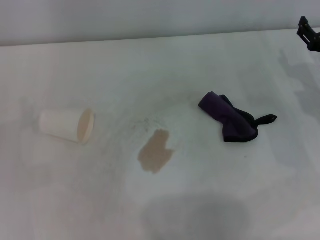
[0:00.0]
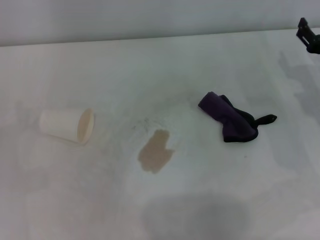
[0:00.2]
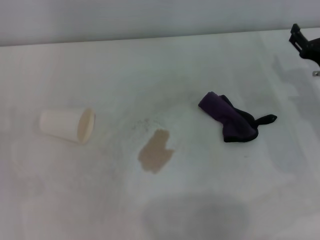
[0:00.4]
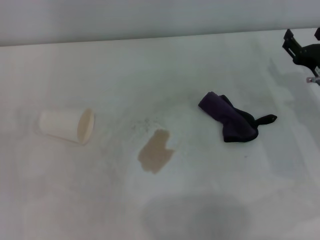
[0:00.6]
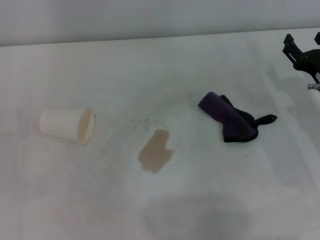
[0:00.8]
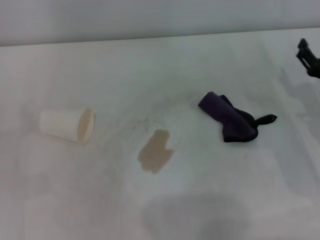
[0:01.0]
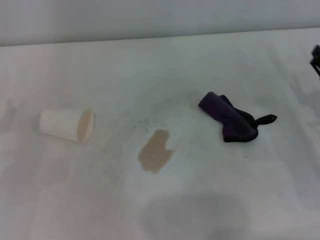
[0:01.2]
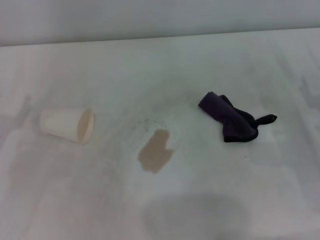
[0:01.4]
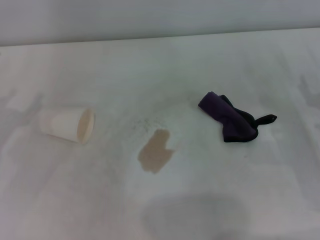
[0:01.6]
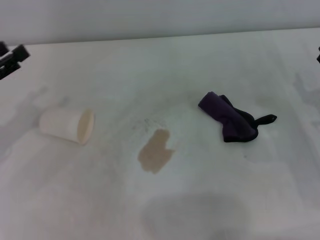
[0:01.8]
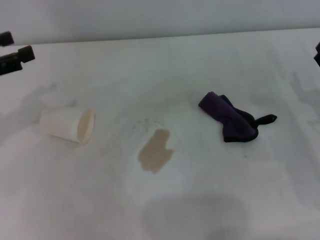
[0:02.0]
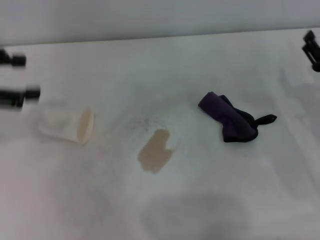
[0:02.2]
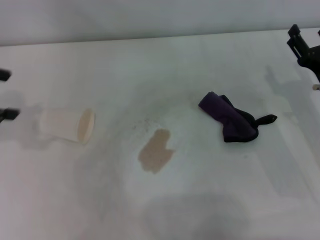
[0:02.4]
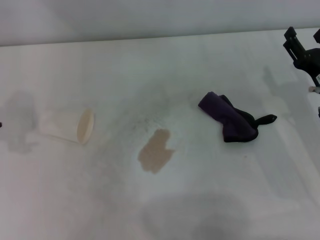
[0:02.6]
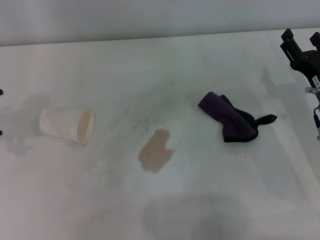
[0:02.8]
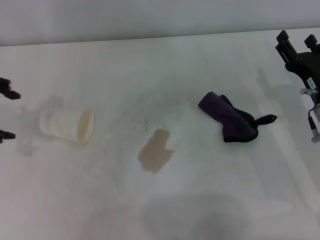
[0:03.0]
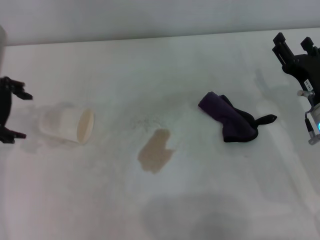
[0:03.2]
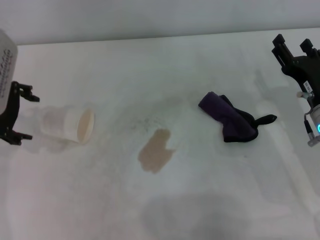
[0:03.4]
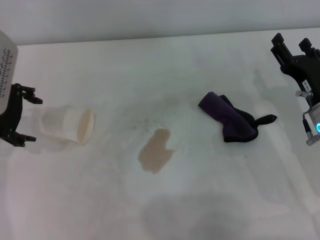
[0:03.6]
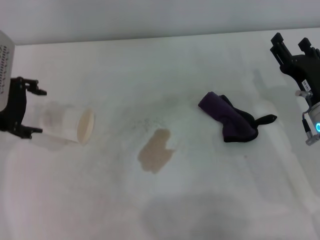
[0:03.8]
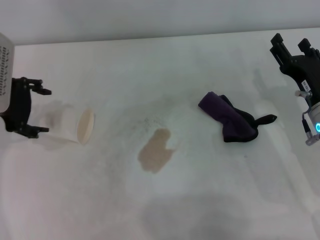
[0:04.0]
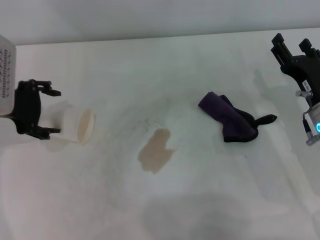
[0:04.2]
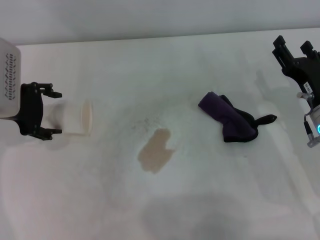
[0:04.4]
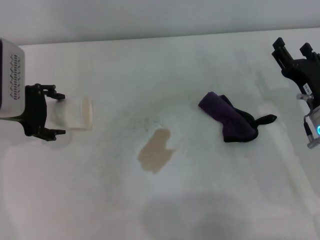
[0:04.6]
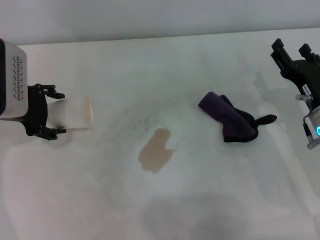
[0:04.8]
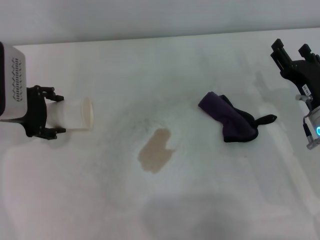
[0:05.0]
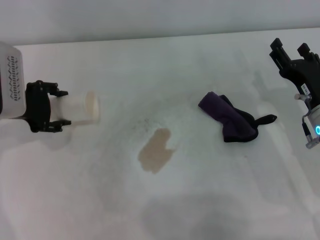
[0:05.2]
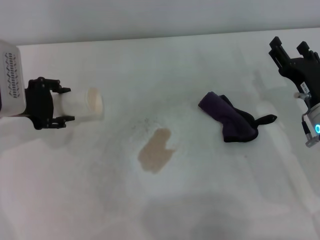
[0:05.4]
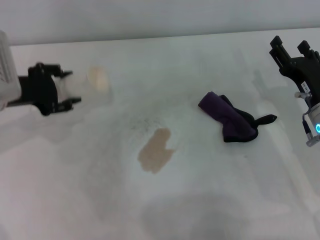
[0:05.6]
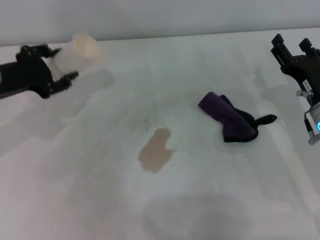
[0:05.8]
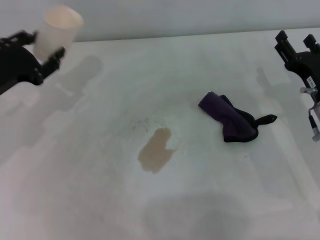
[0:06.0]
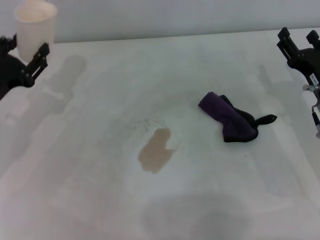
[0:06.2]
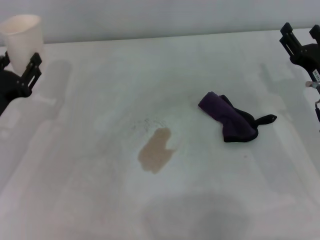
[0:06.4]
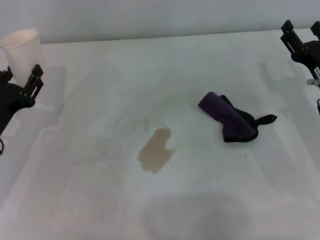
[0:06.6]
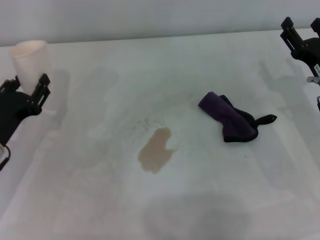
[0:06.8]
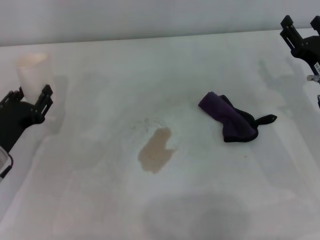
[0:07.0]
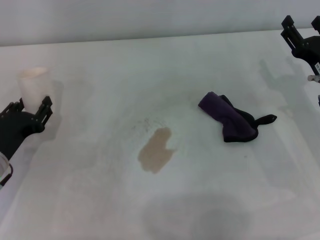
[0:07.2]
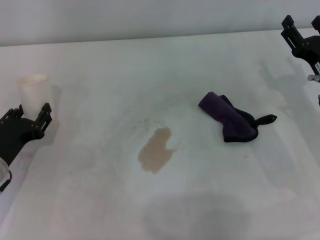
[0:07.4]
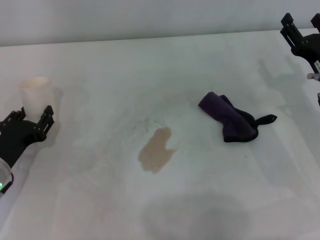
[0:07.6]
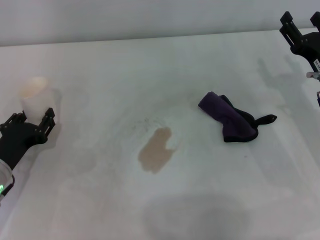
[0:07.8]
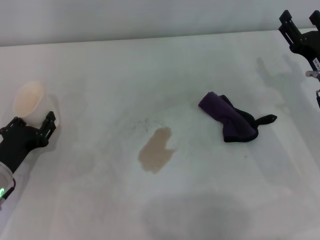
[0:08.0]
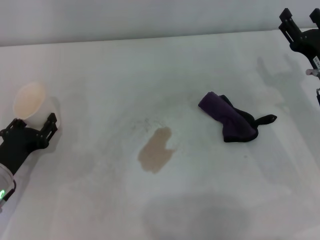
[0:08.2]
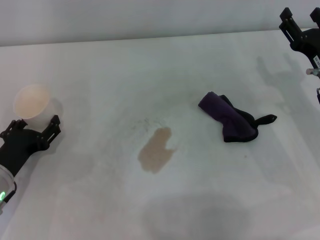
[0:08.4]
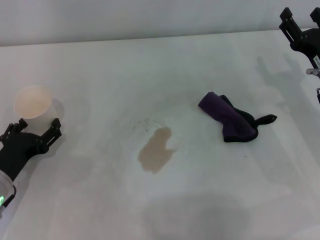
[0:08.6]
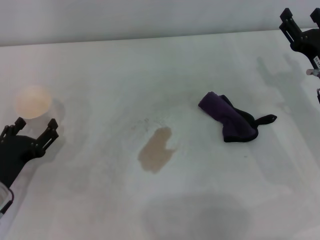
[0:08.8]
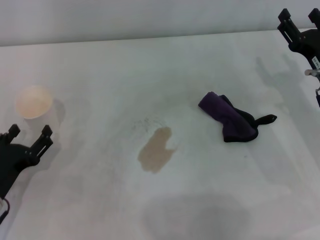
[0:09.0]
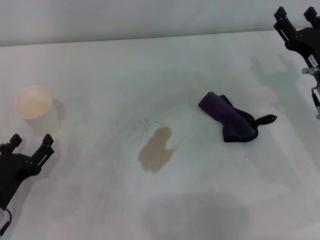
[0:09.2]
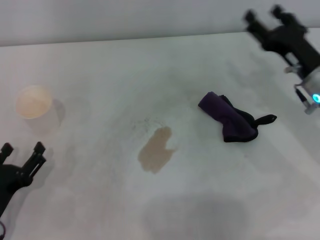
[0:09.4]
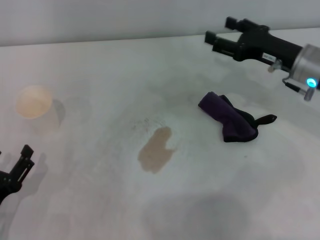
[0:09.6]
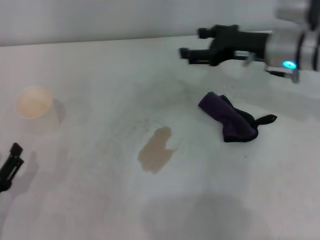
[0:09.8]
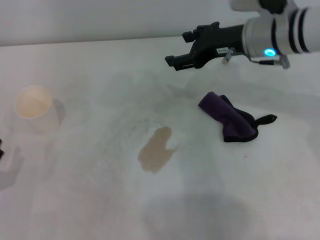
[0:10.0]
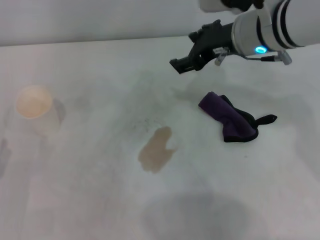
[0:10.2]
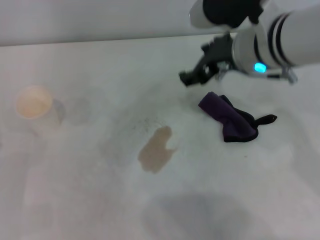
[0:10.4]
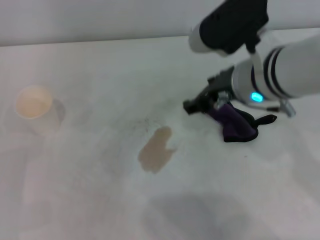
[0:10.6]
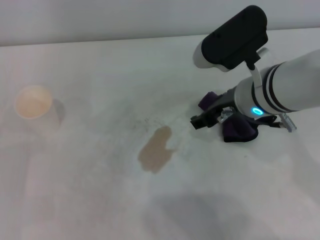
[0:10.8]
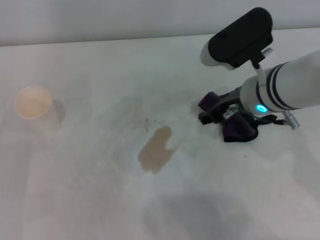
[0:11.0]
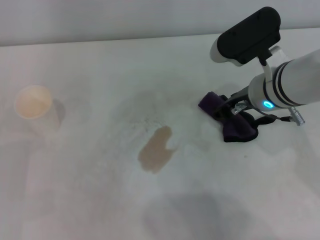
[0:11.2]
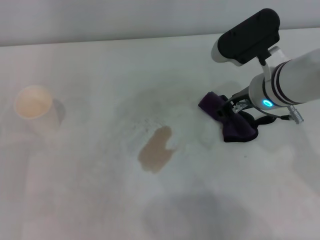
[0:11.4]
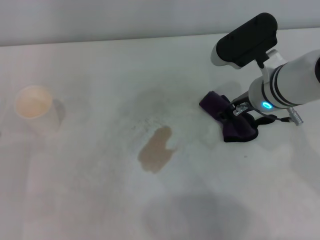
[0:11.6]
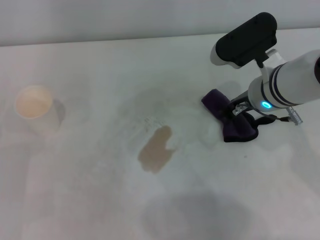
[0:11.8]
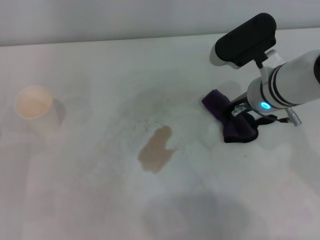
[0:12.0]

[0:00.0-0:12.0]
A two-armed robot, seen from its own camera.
Step, 0:00.0 to 0:04.8: Grasp the paper cup with the left gripper.
Step, 0:05.2 to 0:08.2: Stand the paper cup upright with the left gripper.
Step, 0:08.4 to 0:11.8: Grasp the rag with the right gripper.
0:00.0 to 0:01.6: The right gripper goes some 10 cm backward.
0:01.6 to 0:03.0: The right gripper is displaced to the left by approximately 5 cm.
0:03.0 to 0:04.4: The left gripper is displaced downward by some 10 cm.
0:04.4 to 0:06.0: The left gripper closes its fingers.
0:06.0 to 0:07.6: The left gripper travels downward and backward by approximately 15 cm.
0:07.6 to 0:09.0: The left gripper travels backward by about 5 cm, and opens its fingers.
0:09.0 to 0:10.4: The right gripper shifts approximately 20 cm to the left and upward, while the left gripper goes some 5 cm to the left.
0:10.4 to 0:12.0: The right gripper moves downward, roughly 10 cm, and closes its fingers.

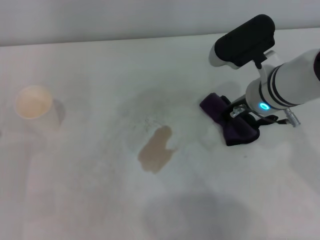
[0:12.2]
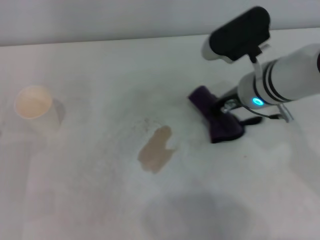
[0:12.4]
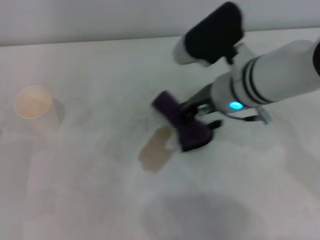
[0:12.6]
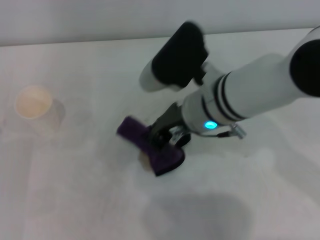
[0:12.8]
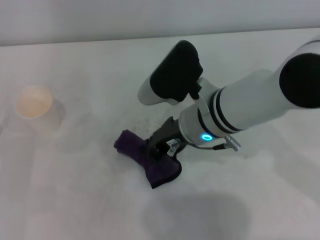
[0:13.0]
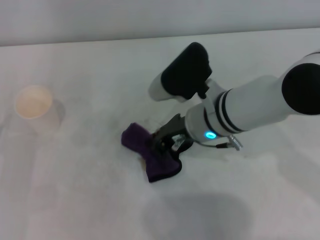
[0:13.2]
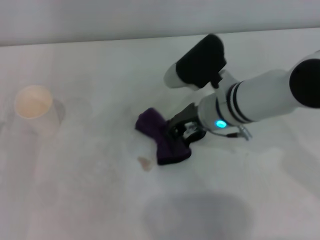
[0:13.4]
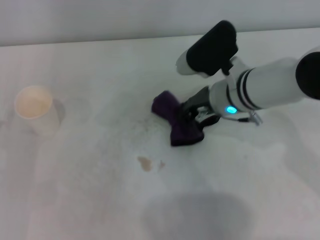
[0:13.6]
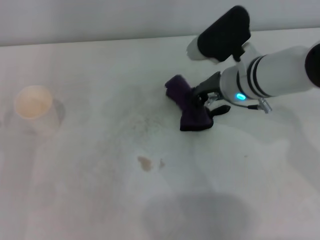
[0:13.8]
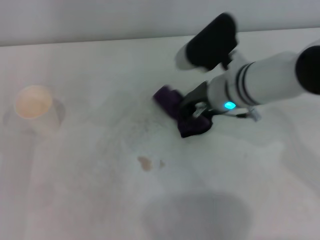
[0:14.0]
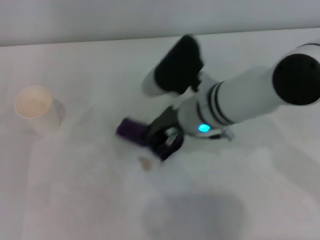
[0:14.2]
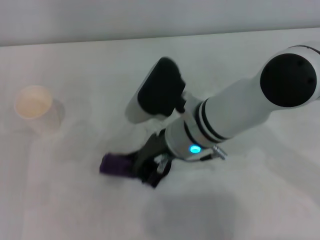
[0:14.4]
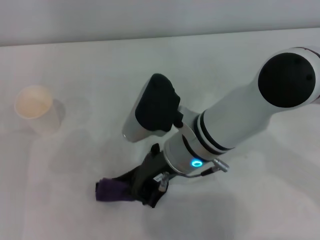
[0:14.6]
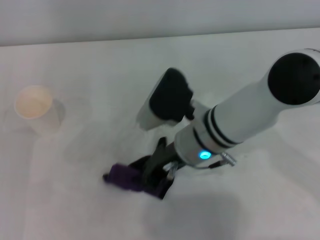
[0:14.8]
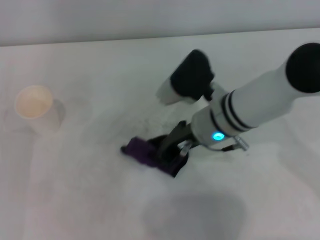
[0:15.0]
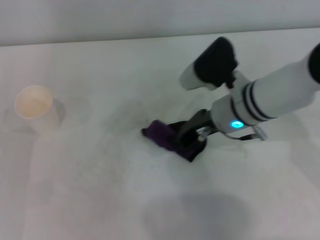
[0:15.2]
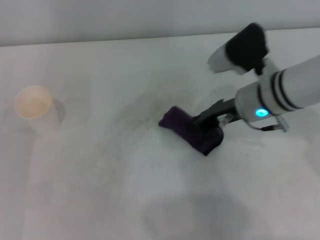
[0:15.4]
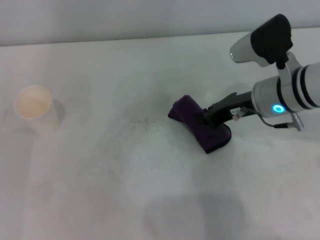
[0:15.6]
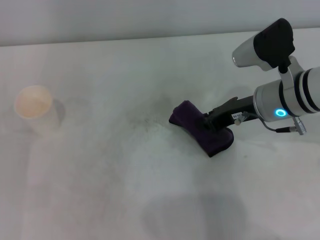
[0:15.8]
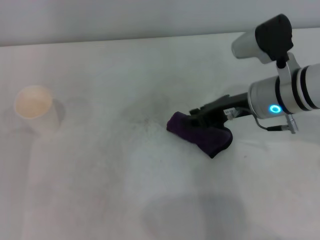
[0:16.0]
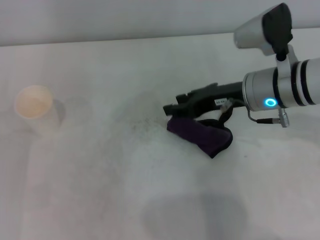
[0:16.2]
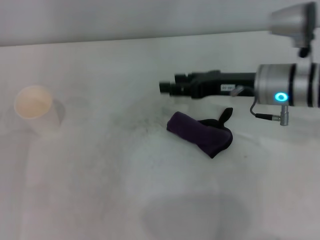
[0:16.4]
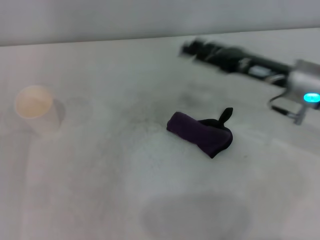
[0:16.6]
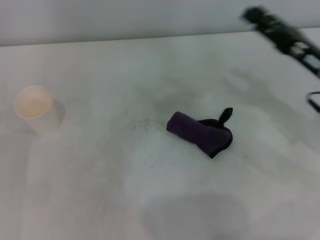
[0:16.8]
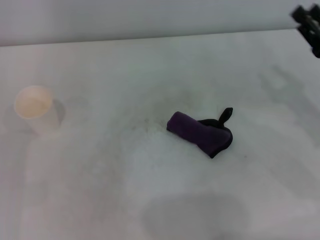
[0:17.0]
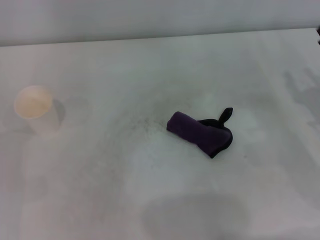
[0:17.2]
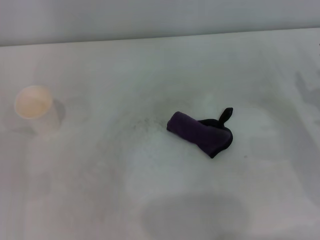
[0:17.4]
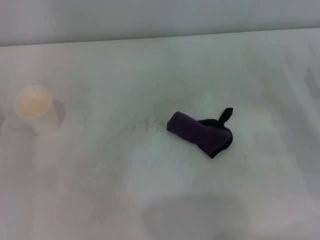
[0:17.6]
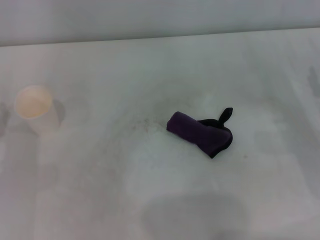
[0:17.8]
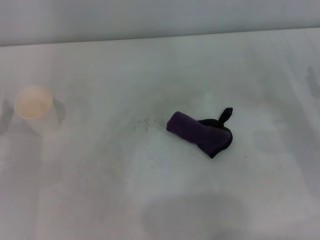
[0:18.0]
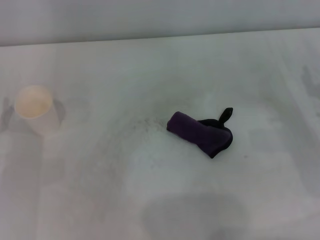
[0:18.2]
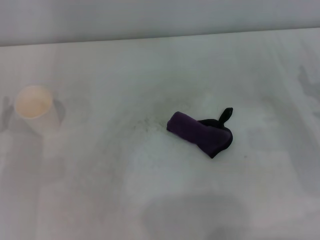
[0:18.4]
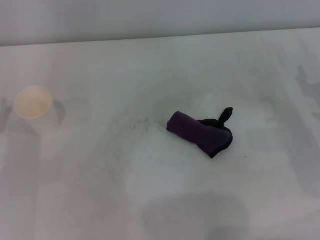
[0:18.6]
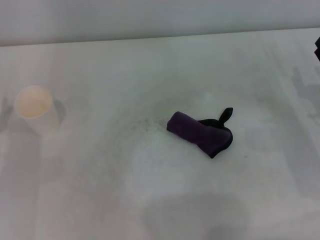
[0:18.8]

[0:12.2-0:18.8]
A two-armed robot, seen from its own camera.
Step, 0:12.2 to 0:15.2: Wipe the stains off the table with the right gripper.
Step, 0:15.4 to 0:15.8: Place the rag on the table with the right gripper.
0:12.2 to 0:13.8: The right gripper moves roughly 10 cm to the left and comes back.
0:13.8 to 0:15.4: The right gripper reaches roughly 10 cm to the left, then returns.
0:15.4 to 0:17.2: The right gripper heads to the right and backward, covering about 20 cm, and opens its fingers.
